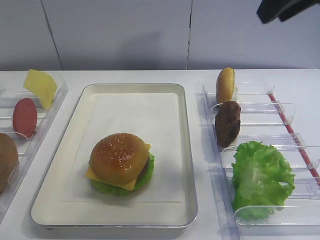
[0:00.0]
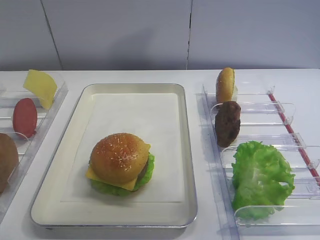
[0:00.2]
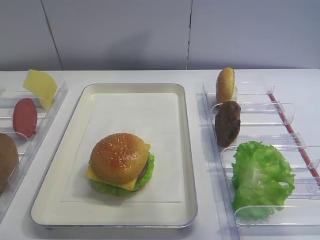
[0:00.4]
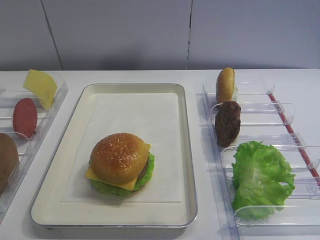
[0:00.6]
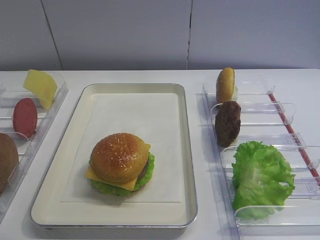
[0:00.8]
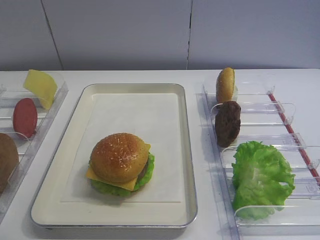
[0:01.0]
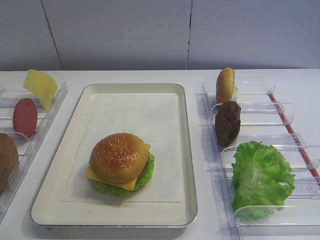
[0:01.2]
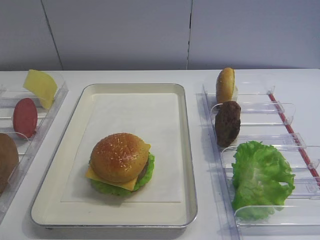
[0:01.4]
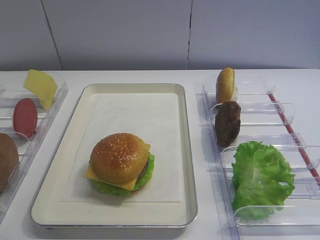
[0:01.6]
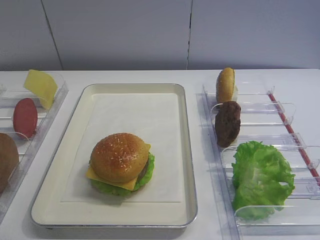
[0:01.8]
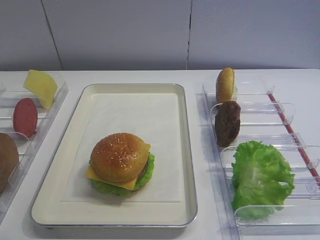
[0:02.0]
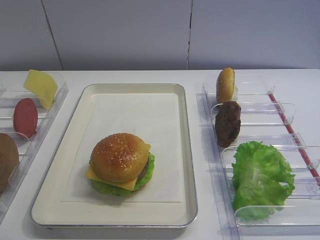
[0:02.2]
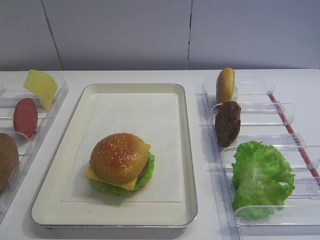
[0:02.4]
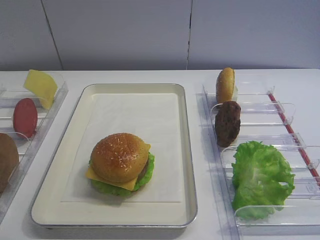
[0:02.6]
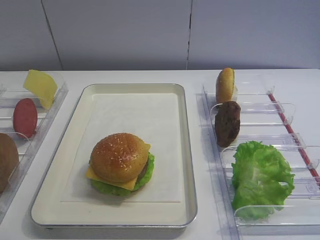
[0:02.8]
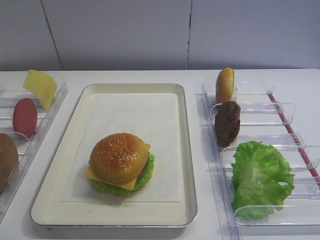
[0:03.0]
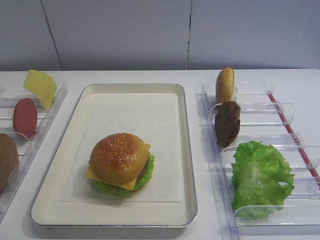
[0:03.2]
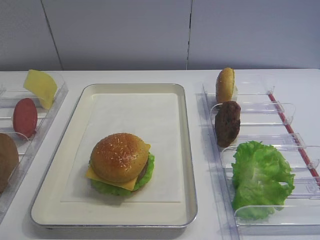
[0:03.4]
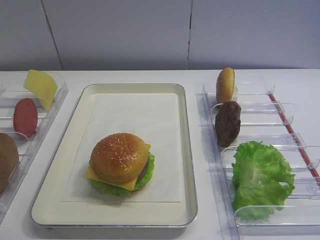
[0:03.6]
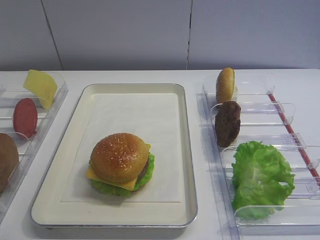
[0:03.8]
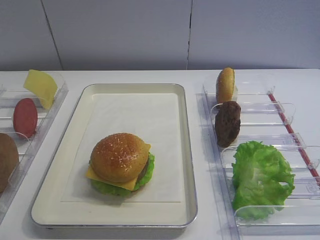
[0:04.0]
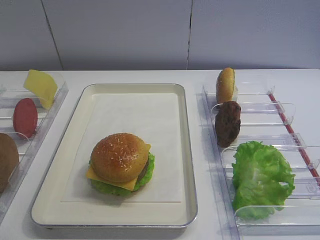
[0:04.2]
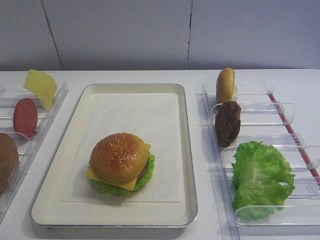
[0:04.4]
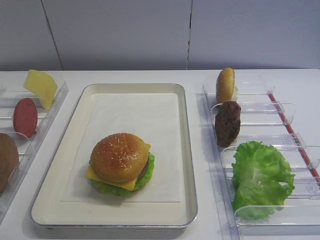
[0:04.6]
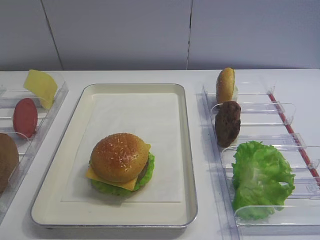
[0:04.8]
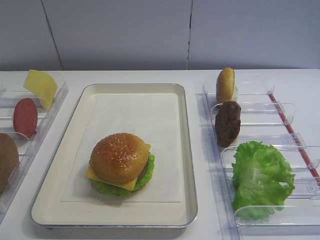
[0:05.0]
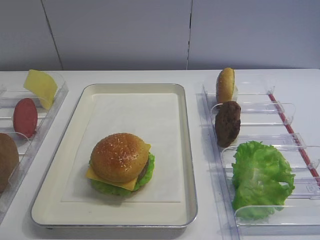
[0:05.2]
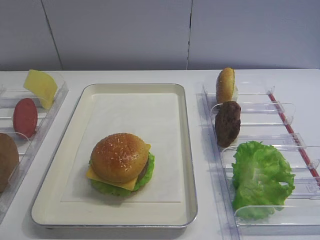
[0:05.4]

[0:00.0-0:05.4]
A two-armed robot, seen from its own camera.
0:00.0 to 0:01.4: The right gripper is displaced backward by approximately 25 cm.

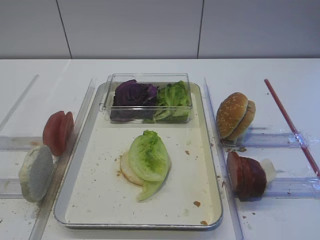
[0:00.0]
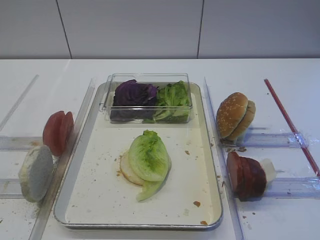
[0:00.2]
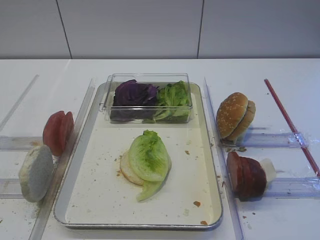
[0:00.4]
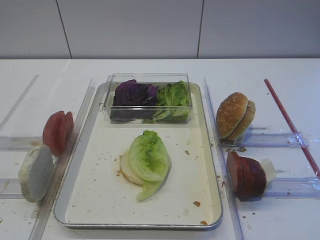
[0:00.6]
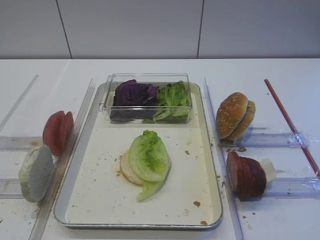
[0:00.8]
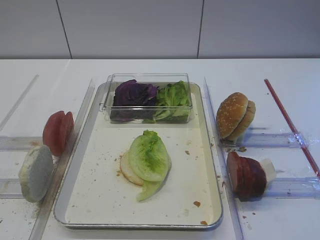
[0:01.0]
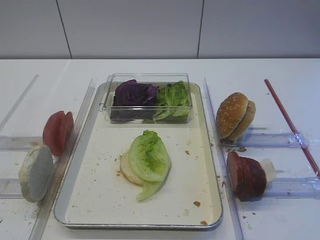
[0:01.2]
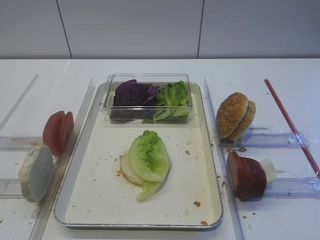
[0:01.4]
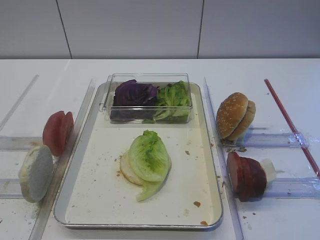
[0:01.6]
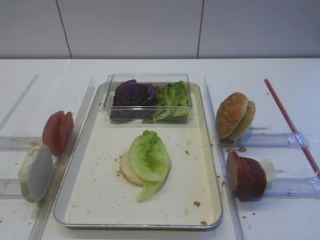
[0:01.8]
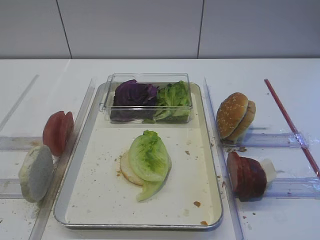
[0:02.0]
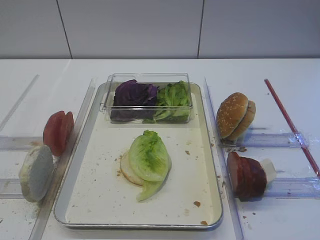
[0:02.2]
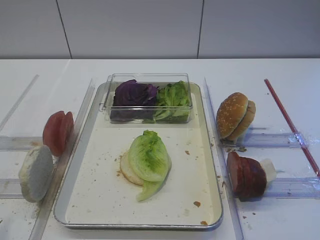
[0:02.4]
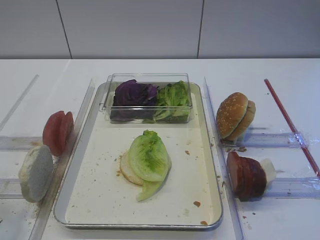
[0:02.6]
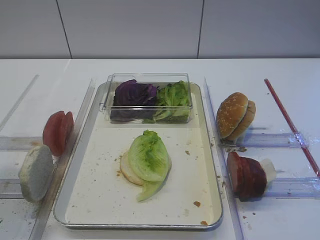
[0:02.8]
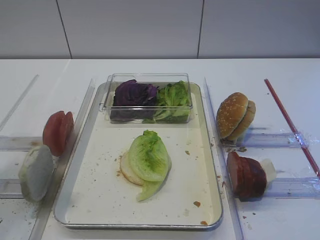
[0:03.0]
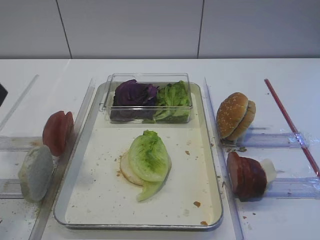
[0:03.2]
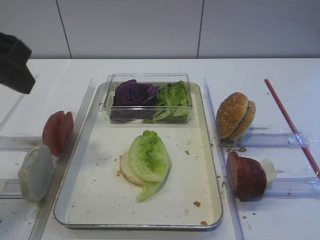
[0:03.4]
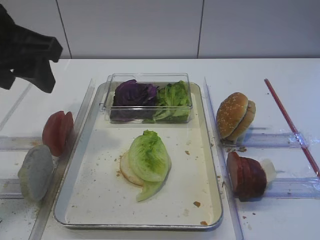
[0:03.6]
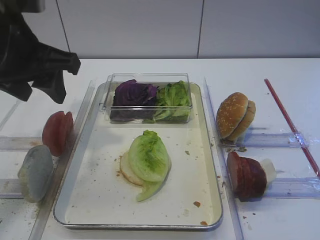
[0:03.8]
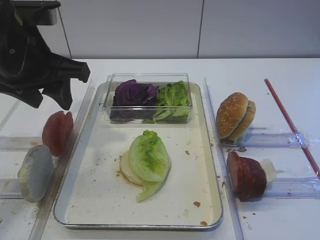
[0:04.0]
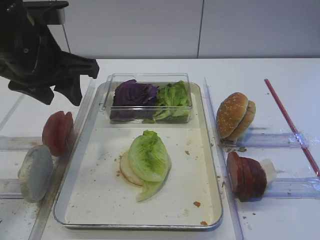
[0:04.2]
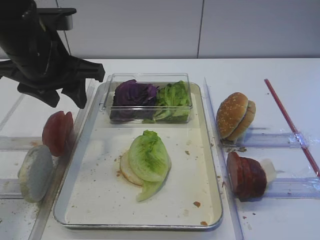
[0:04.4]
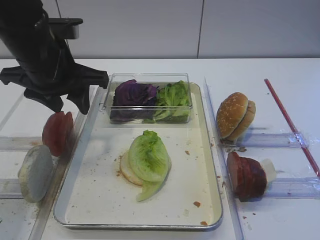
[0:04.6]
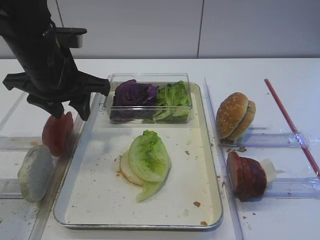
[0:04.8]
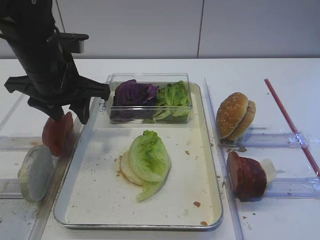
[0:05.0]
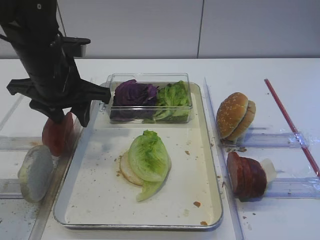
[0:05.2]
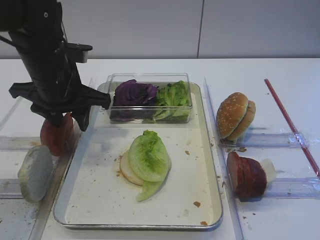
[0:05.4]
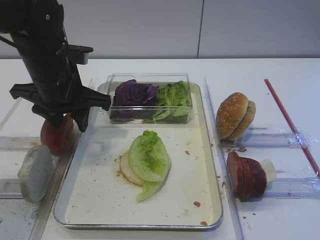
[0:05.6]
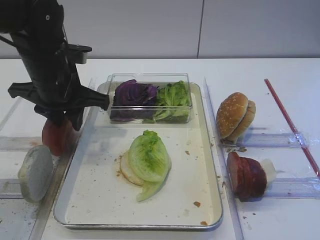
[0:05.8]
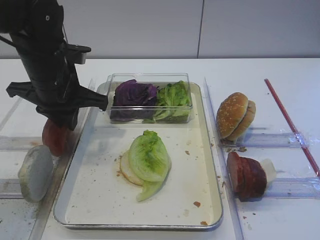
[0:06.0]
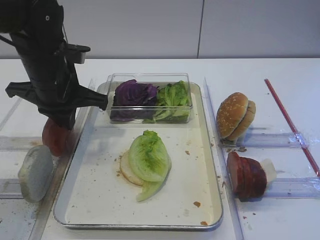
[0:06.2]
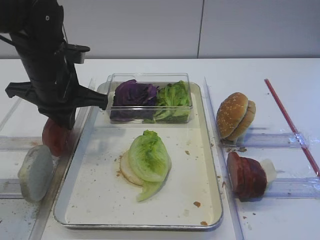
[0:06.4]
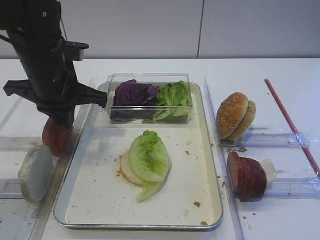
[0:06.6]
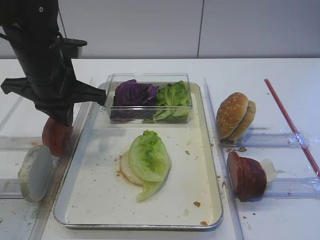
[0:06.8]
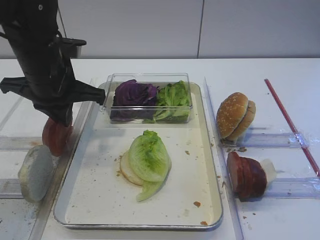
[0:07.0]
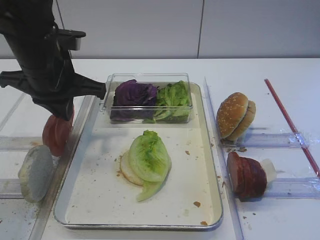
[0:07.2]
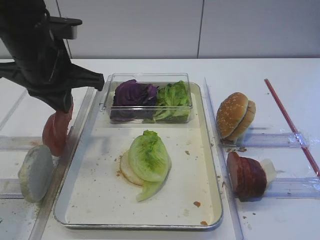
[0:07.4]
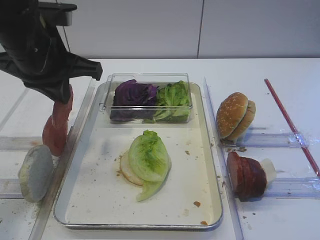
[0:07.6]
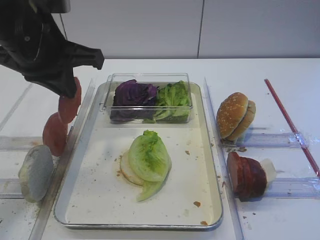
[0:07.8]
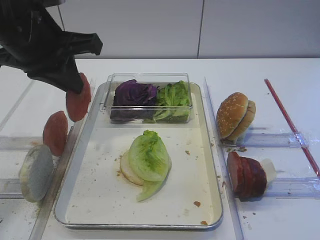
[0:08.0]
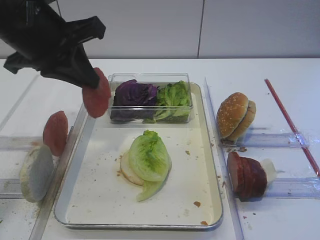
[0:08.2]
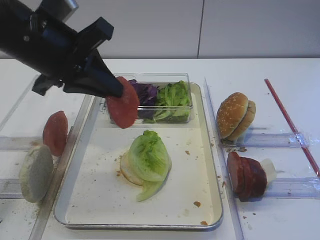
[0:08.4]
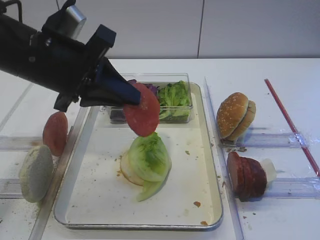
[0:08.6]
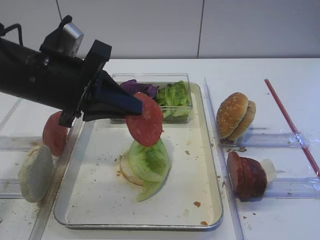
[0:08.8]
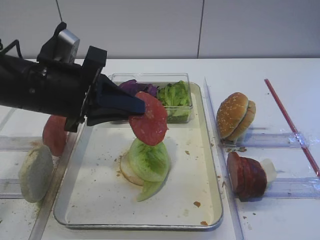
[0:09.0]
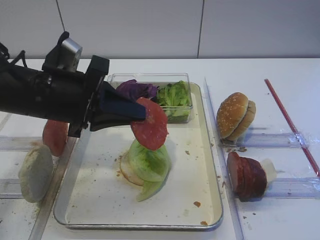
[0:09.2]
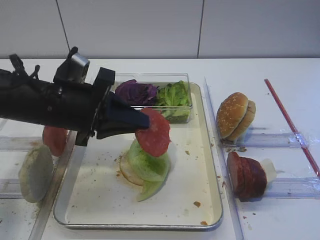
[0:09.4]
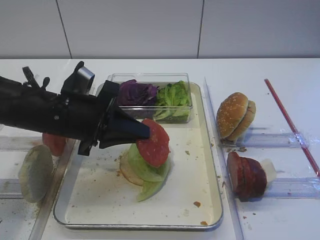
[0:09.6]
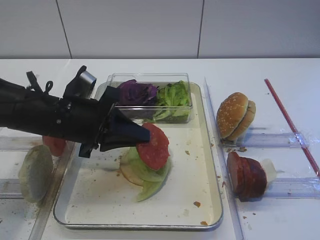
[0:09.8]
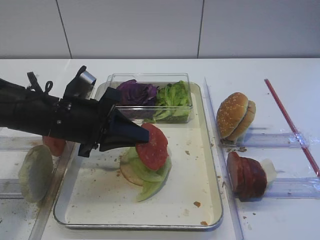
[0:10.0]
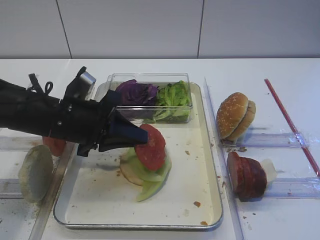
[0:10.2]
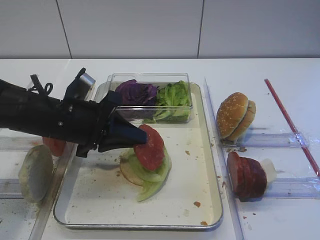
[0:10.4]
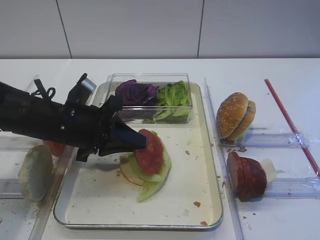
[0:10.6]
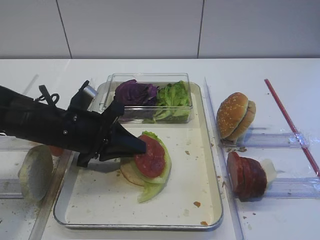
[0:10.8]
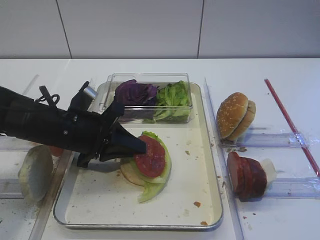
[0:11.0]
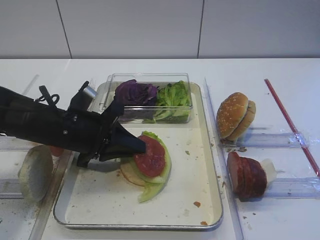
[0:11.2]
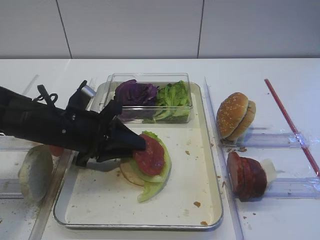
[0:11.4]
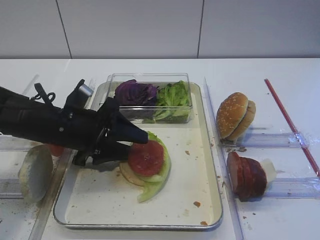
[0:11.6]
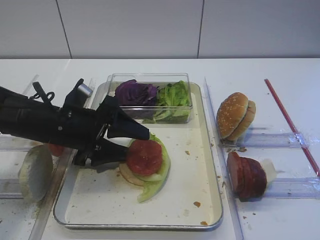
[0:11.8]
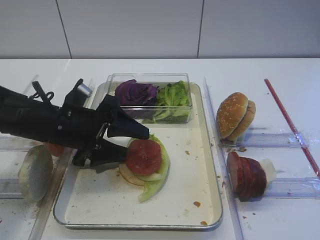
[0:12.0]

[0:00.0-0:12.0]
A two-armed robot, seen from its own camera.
Step, 0:00.0 to 0:07.0: Pick up the tomato slice with the left gripper.
0:01.6 to 0:03.0: The left gripper shifts approximately 15 cm forward and upward.
0:03.0 to 0:04.4: The left gripper is displaced forward, to the right and downward by some 20 cm.
0:04.4 to 0:06.0: The left gripper travels downward by some 5 cm, and closes its fingers.
0:06.0 to 0:07.6: The left gripper goes approximately 5 cm upward.
0:07.6 to 0:09.0: The left gripper goes some 5 cm downward and backward.
0:09.0 to 0:10.4: The left gripper travels downward by some 5 cm.
0:10.4 to 0:12.0: The left gripper opens.

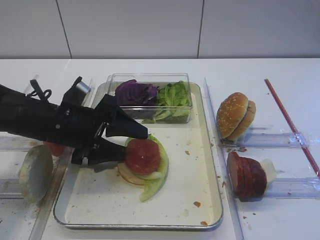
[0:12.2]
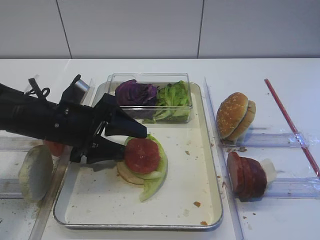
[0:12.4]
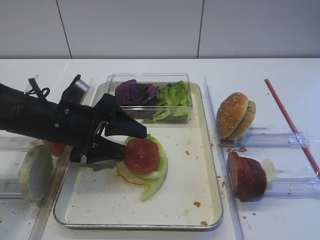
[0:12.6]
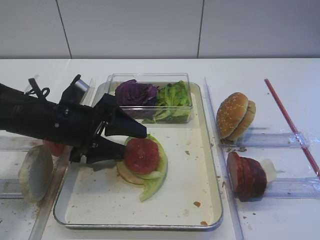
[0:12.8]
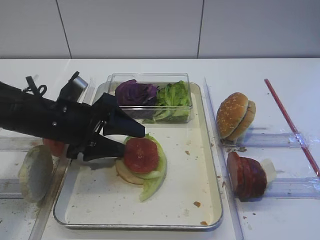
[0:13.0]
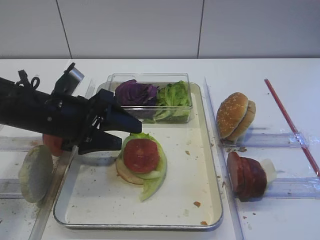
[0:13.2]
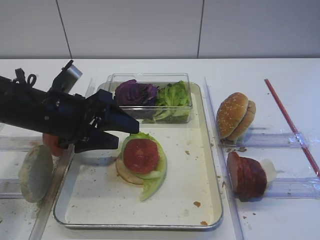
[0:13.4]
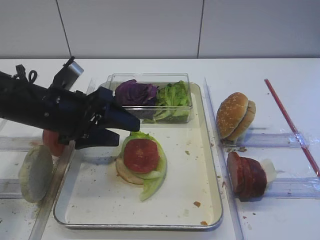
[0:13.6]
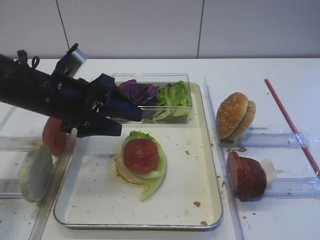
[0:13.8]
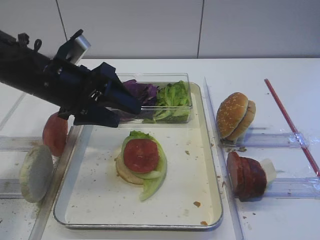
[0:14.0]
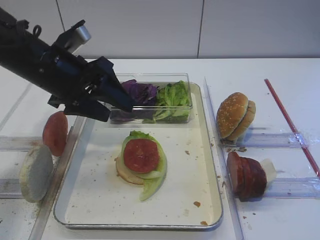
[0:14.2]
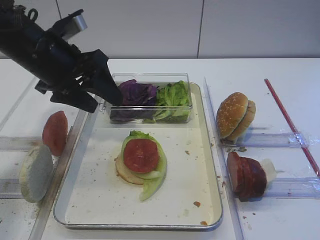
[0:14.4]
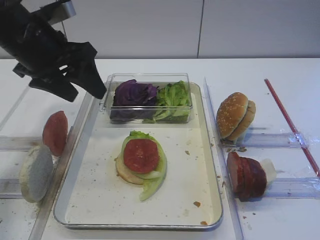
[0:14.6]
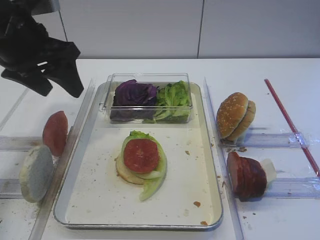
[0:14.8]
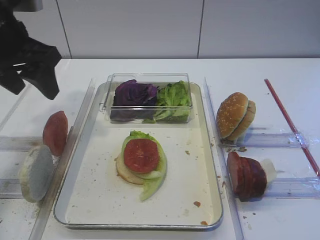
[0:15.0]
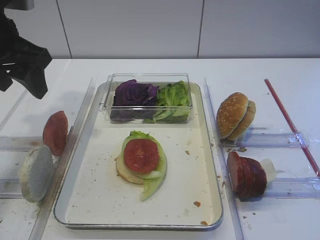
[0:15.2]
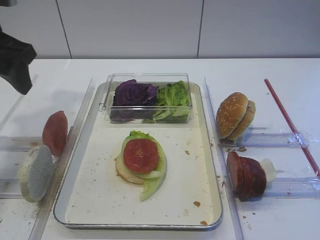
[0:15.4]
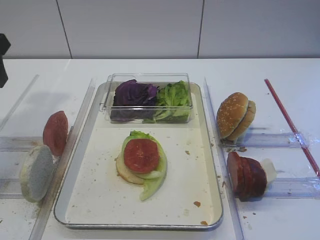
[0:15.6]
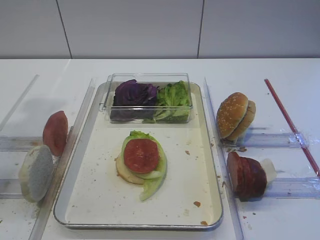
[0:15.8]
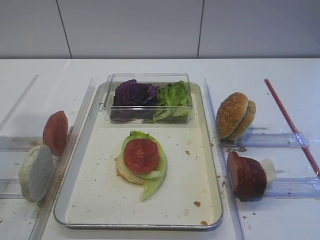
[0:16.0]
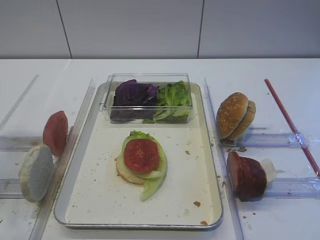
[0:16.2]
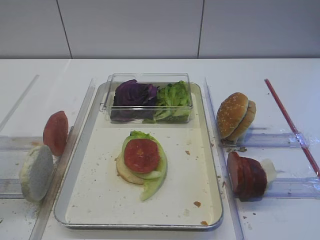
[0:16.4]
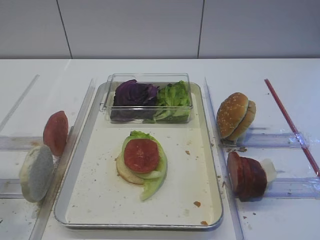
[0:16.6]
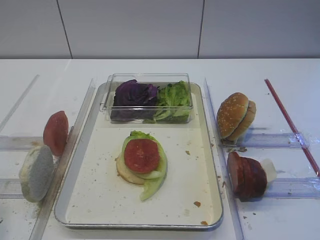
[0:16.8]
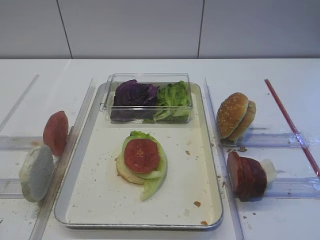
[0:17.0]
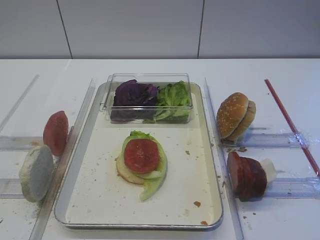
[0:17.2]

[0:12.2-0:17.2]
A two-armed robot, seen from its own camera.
0:12.2 to 0:13.8: The left gripper shifts about 5 cm upward.
0:13.8 to 0:15.6: The left gripper goes roughly 20 cm upward and to the left.
0:15.6 to 0:17.2: The left gripper goes about 30 cm backward.
